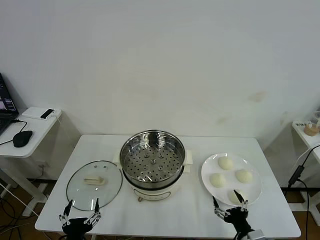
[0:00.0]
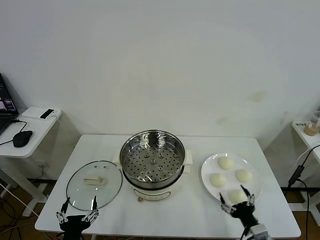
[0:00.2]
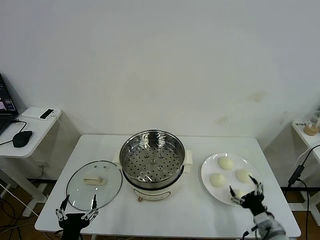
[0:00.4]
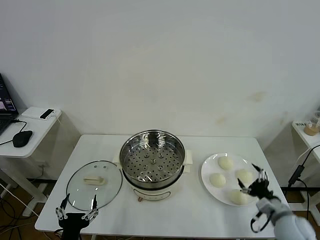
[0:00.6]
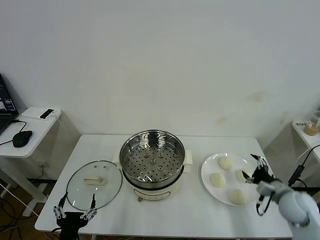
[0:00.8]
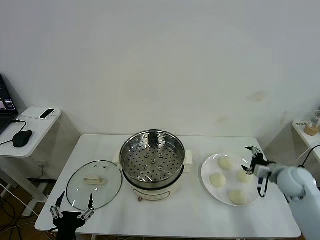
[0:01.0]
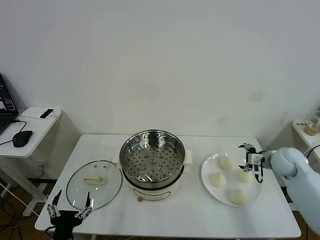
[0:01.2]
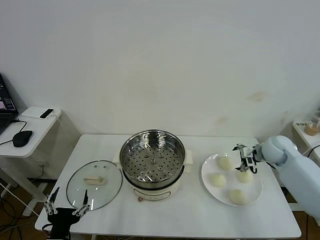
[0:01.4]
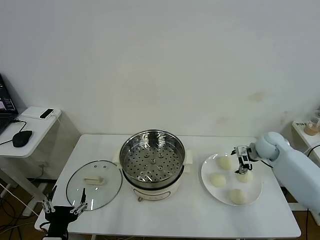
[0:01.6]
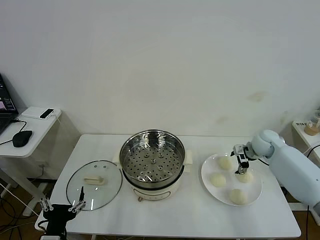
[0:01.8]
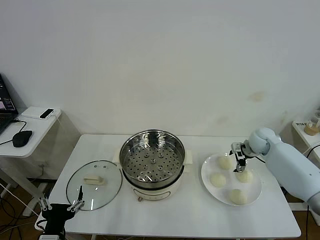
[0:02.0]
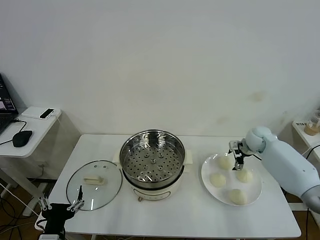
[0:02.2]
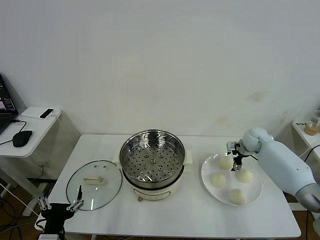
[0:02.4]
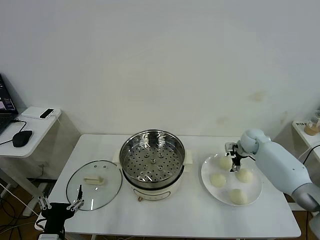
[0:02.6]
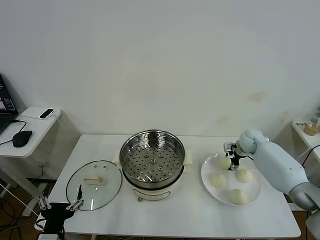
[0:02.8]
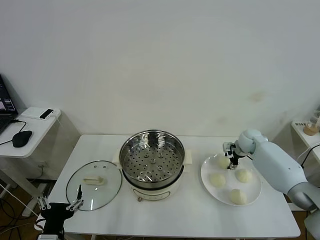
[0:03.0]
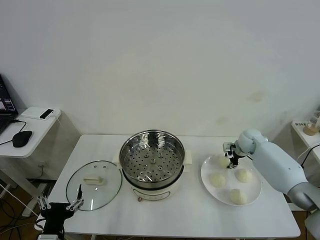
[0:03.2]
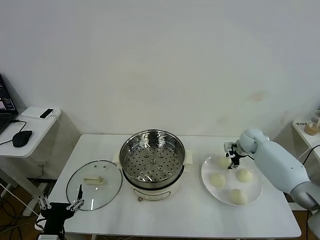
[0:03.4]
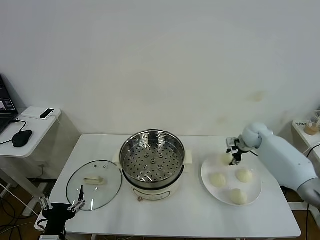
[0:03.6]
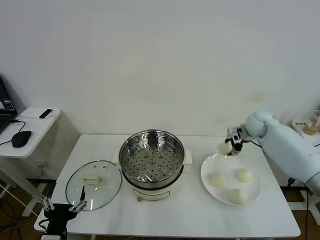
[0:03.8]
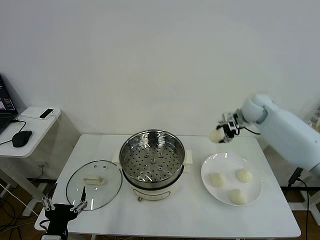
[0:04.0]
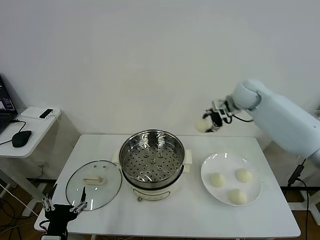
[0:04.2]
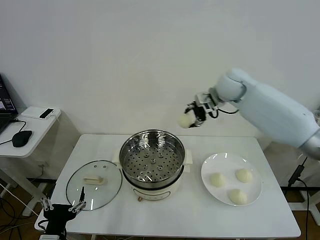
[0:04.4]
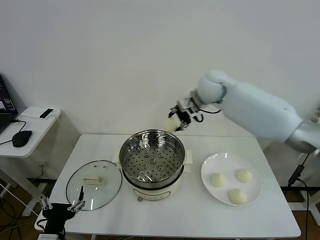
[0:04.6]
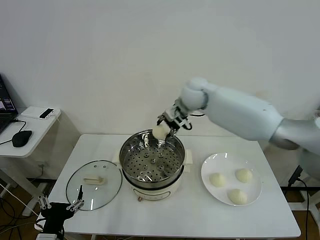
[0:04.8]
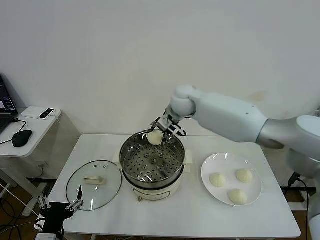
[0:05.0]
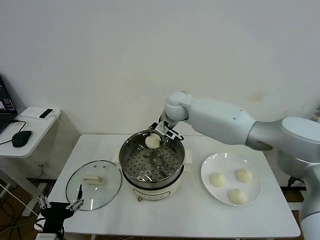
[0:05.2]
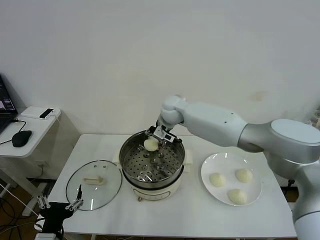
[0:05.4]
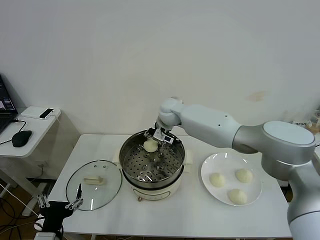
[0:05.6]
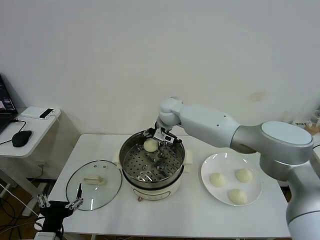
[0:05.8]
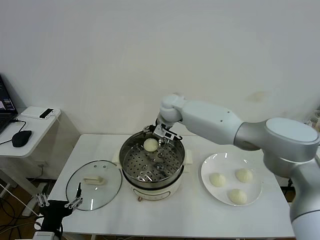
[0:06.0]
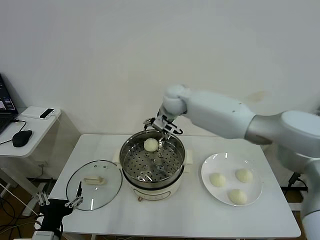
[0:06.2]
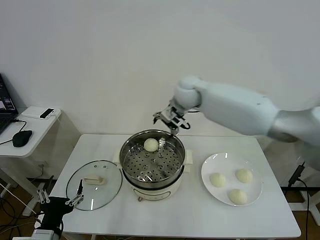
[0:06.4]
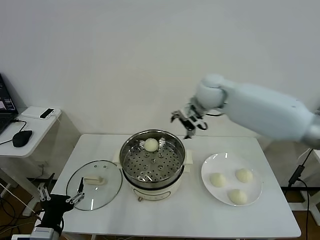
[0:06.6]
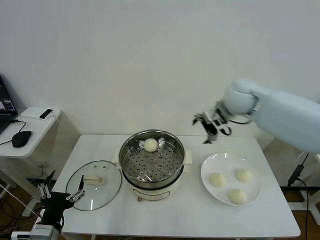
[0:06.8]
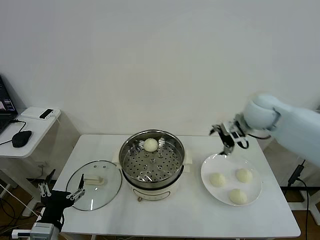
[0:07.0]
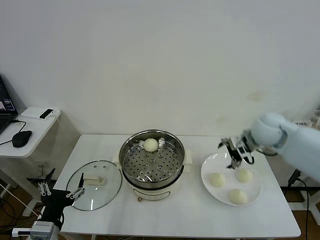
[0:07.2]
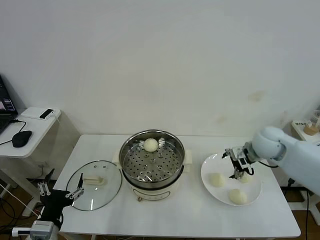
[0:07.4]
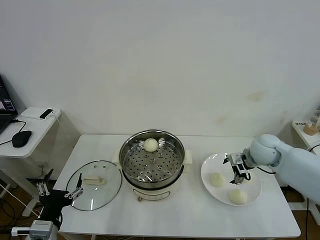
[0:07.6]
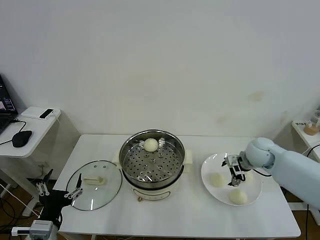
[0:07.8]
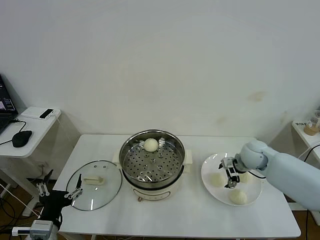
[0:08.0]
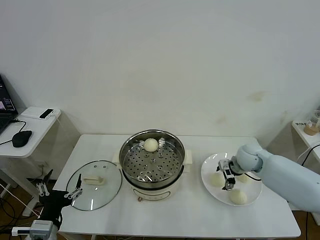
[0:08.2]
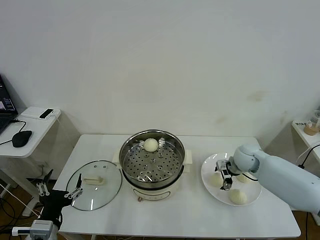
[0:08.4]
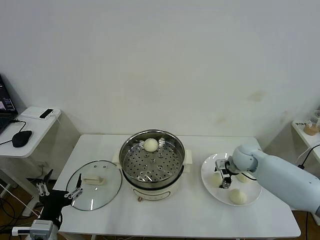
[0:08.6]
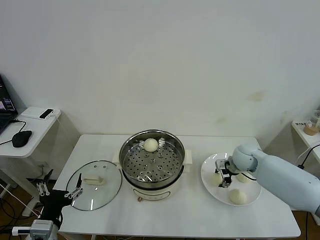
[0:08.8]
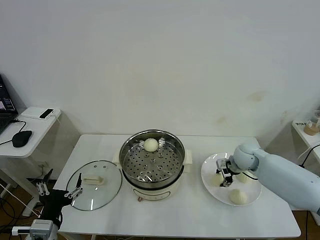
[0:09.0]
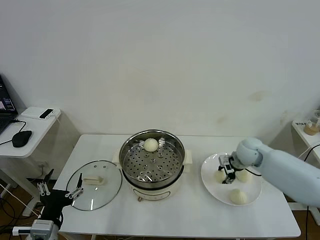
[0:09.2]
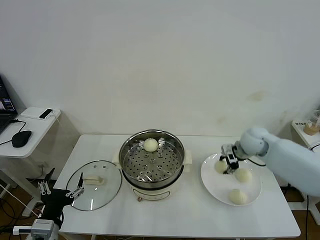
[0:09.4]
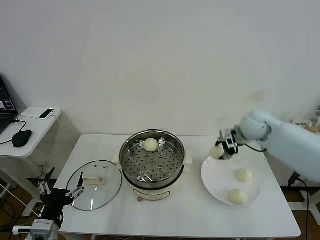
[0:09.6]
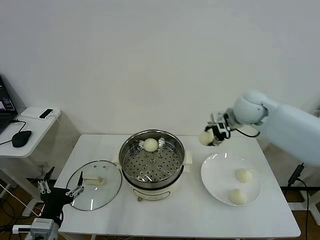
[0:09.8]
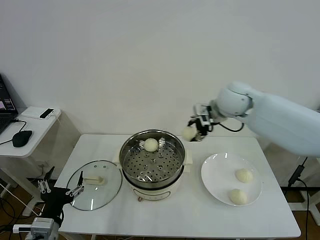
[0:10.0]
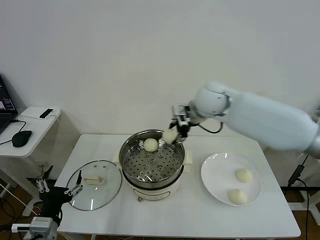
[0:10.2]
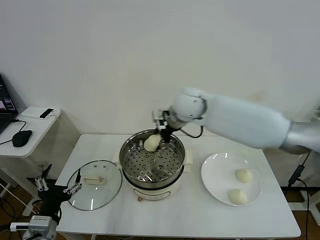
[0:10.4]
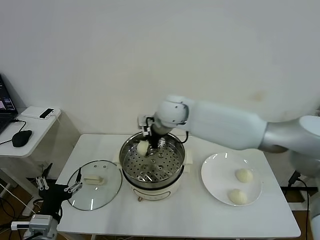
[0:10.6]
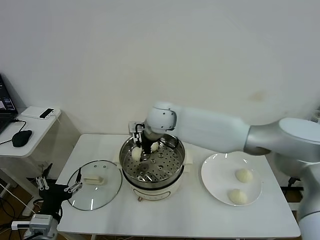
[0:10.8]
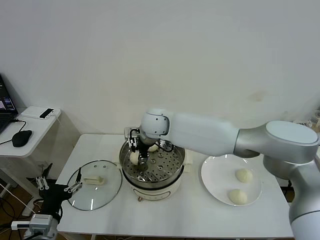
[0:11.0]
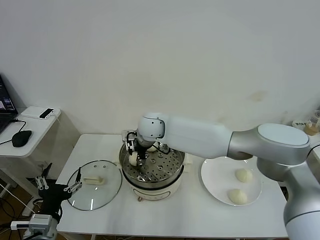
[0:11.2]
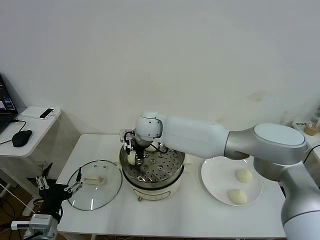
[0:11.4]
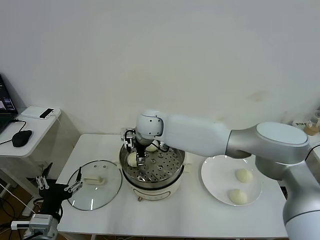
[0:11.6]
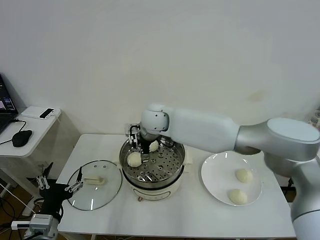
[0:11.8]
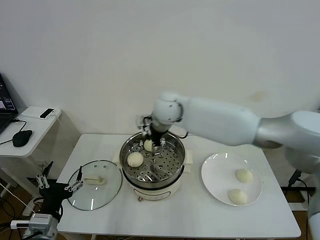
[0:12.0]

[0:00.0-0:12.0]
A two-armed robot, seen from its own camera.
Task of the whole recording: take steamed baozi put them in steamer then cover it.
Step, 0:00.0 to 0:03.0: Grasp the baozi in the plate with right gripper.
Step, 0:03.2 to 0:05.8: Place the baozi on the steamer with right gripper.
Step, 0:06.2 to 0:08.8: Grasp the baozi in the plate with right gripper.
Step, 0:09.0 to 0:11.6: Place the baozi on the steamer with right gripper.
0:01.6 to 0:03.0: The right gripper shifts by roughly 5 cm, and closes its fingers.
0:03.0 to 0:04.4: The right gripper is displaced upward and to the left by approximately 30 cm.
0:04.4 to 0:06.0: The right gripper is displaced to the left and downward by some 15 cm, and opens.
0:06.0 to 0:07.6: The right gripper goes roughly 30 cm to the right and backward.
0:07.6 to 0:09.0: The right gripper changes place by about 5 cm, and closes.
0:09.0 to 0:10.4: The right gripper shifts about 35 cm to the left and upward.
0:10.4 to 0:12.0: The right gripper reaches roughly 10 cm to the left, then returns, and opens up.

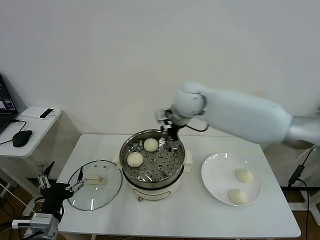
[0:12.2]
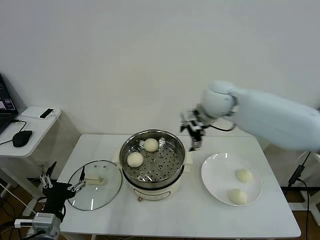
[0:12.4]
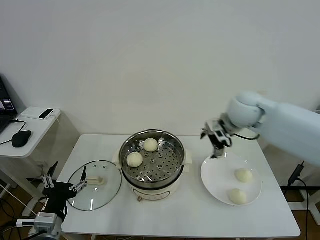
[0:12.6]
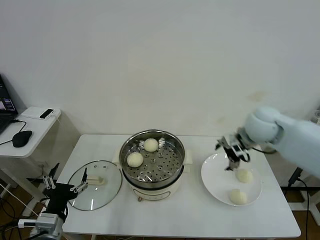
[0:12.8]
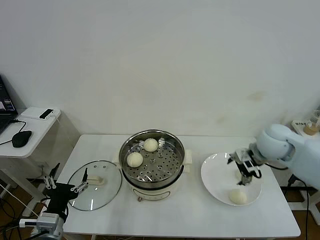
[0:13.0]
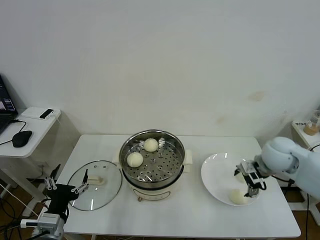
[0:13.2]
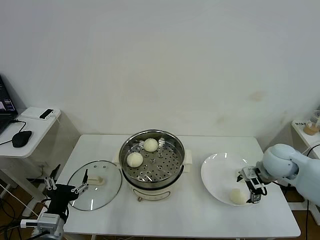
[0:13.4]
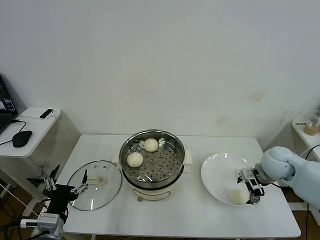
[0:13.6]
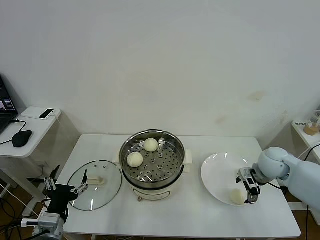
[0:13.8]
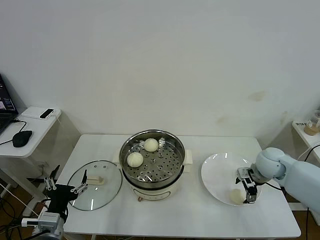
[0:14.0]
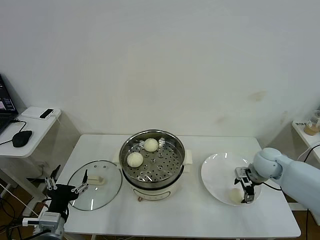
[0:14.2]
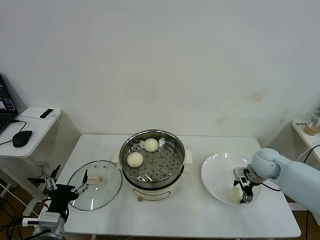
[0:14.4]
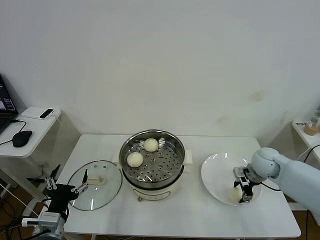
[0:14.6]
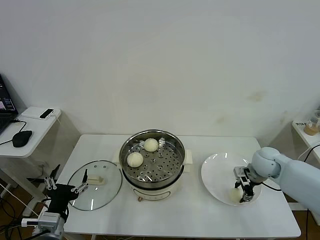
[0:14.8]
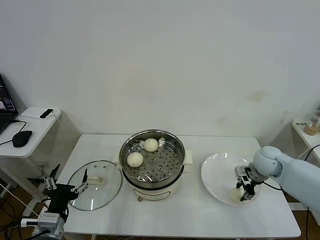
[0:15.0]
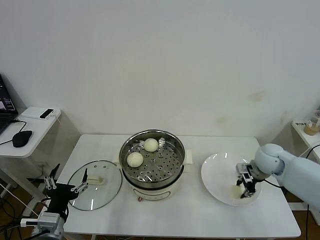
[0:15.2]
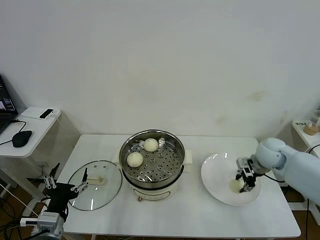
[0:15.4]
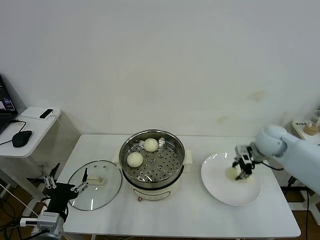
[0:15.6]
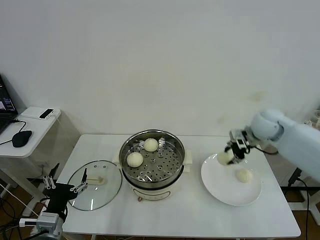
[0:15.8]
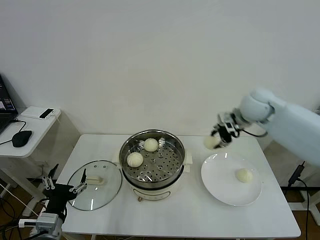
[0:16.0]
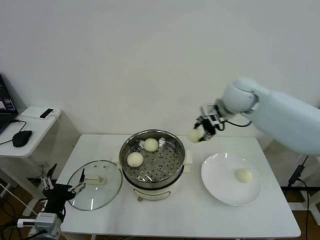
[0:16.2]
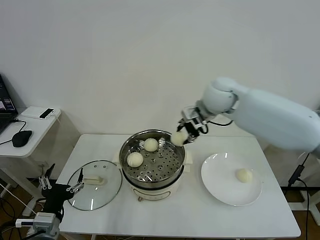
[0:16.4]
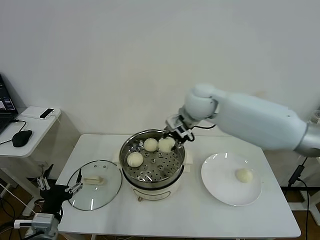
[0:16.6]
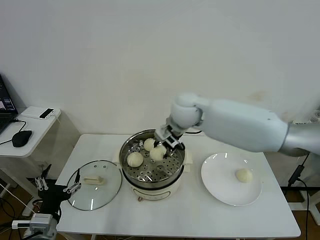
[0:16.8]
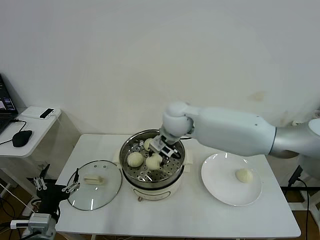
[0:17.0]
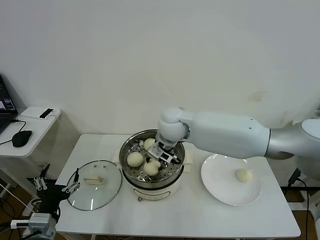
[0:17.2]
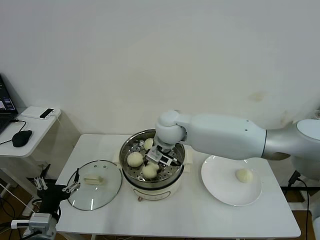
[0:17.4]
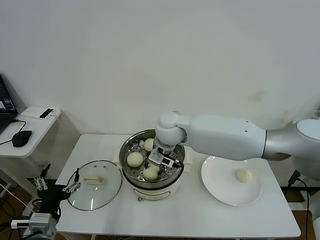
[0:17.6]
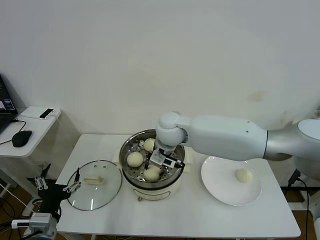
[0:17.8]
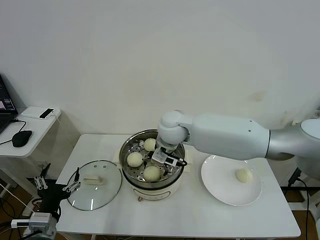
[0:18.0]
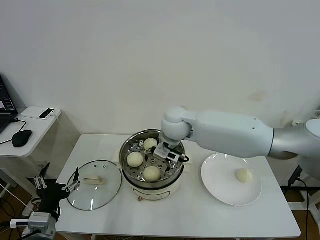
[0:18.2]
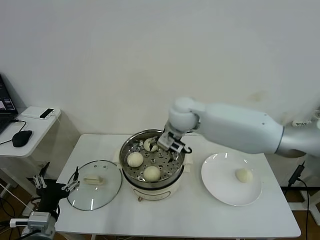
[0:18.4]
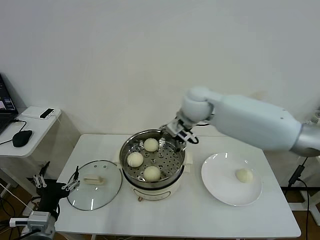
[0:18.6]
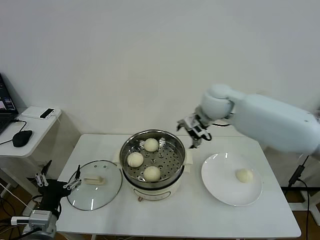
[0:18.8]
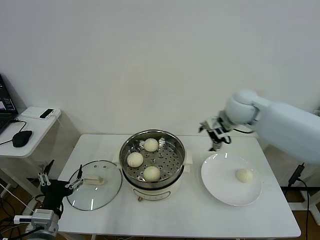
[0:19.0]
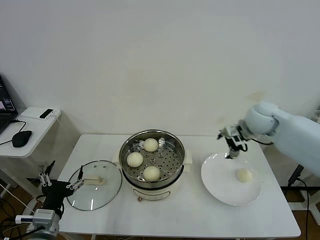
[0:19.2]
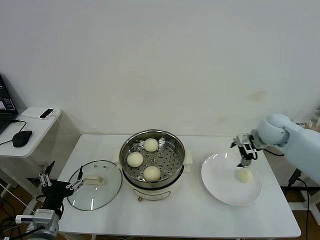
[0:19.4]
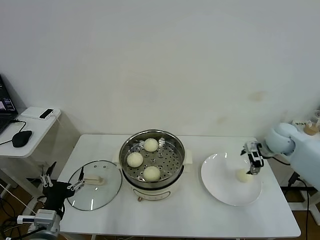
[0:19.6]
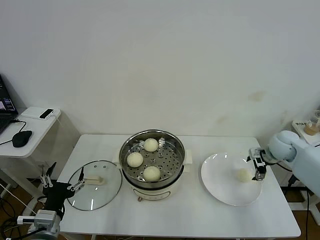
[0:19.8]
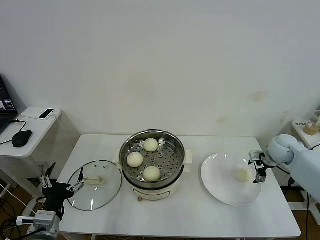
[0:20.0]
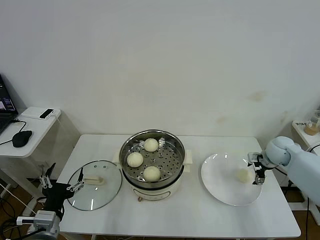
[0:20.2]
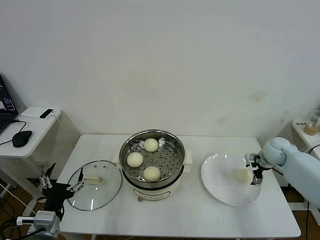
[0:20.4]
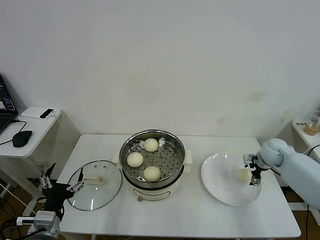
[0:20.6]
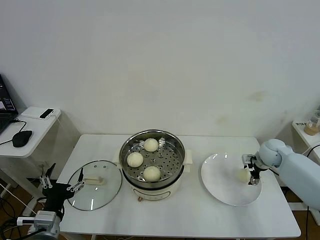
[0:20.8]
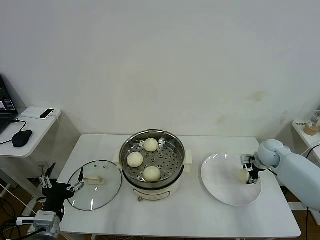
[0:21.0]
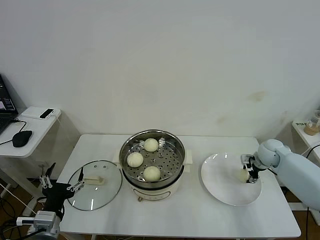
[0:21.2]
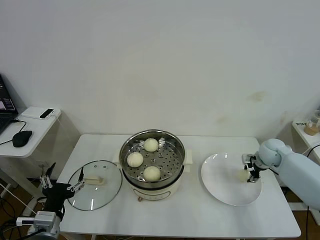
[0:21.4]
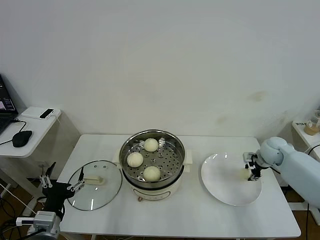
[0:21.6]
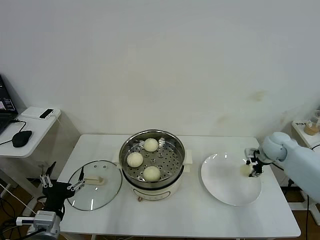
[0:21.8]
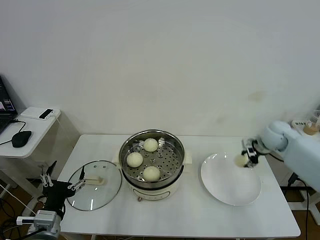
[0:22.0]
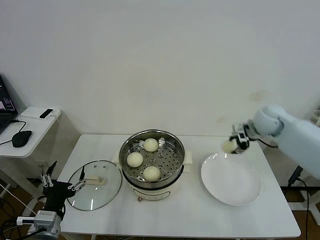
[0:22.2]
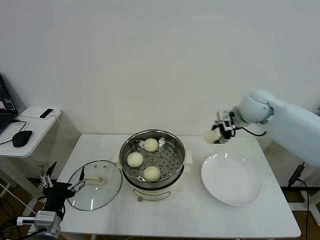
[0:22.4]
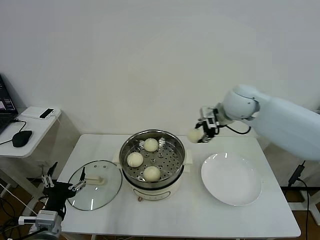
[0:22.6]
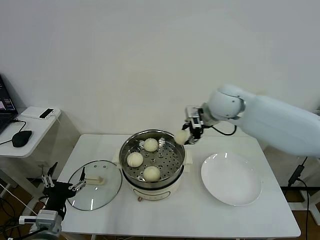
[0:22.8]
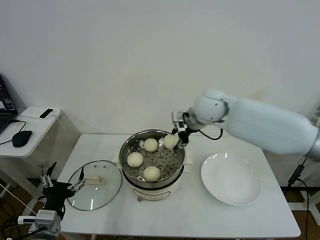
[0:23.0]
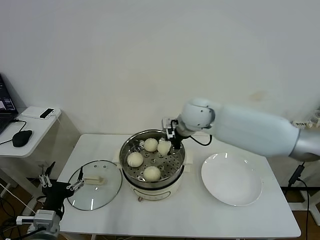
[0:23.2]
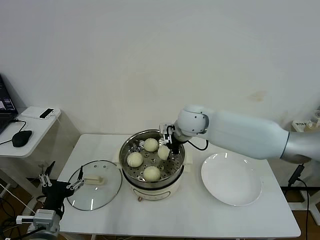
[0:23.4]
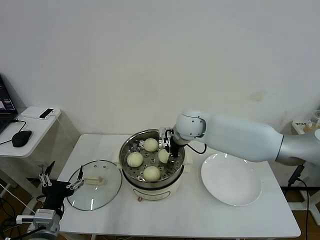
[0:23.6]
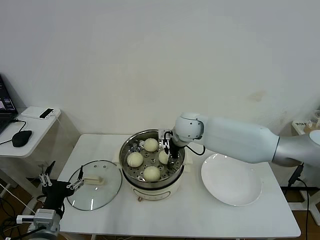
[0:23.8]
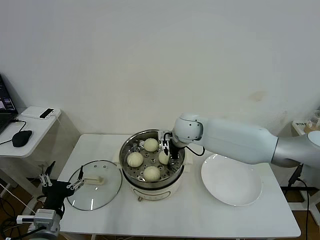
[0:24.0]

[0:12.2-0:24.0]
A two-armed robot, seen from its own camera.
Task of the whole recording: take steamed baozi put them in steamer then cover it.
Step, 0:12.2 to 0:14.8: Grasp the baozi in the plate with right gripper.
Step, 0:15.0 to 0:18.0: Place the baozi on the steamer with right gripper.
Step, 0:18.2 to 0:21.6: Grasp the baozi in the plate with right gripper.
0:12.2 to 0:13.6: The right gripper shifts some 30 cm to the right, downward and backward.
0:13.6 to 0:15.2: The right gripper closes up.
0:15.2 to 0:16.6: The right gripper heads to the left and upward, covering some 30 cm.
0:16.6 to 0:18.2: The right gripper heads downward, covering approximately 5 cm, and opens.
0:18.2 to 0:19.6: The right gripper shifts about 35 cm to the right.
0:19.6 to 0:21.0: The right gripper shifts approximately 10 cm downward, and closes up.
0:21.0 to 0:22.6: The right gripper shifts roughly 30 cm upward and to the left, and closes its fingers.
0:22.6 to 0:24.0: The right gripper heads to the left and downward, covering some 15 cm.
